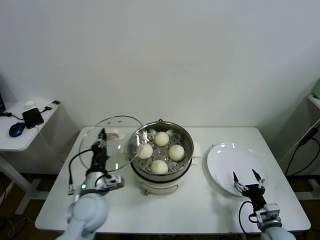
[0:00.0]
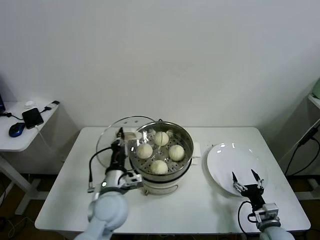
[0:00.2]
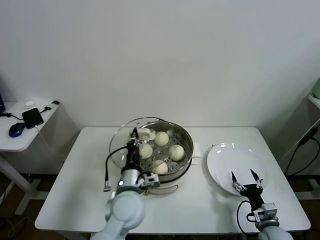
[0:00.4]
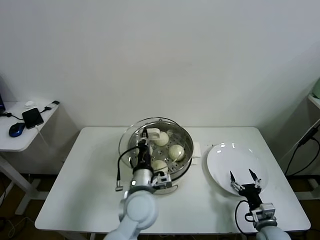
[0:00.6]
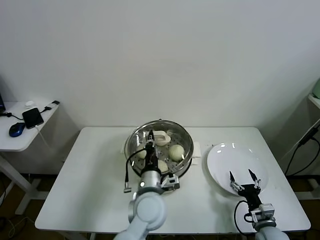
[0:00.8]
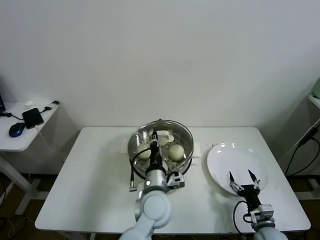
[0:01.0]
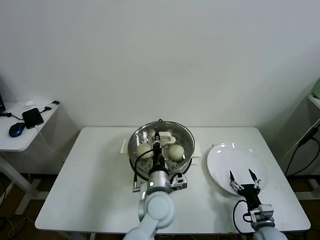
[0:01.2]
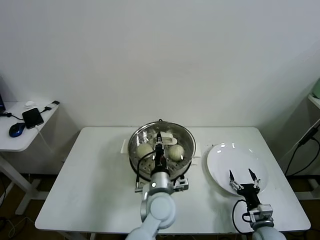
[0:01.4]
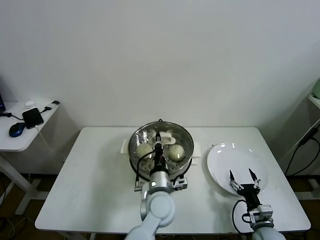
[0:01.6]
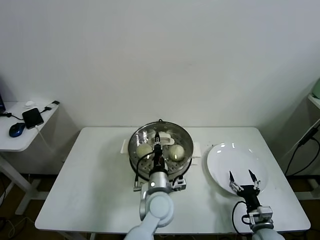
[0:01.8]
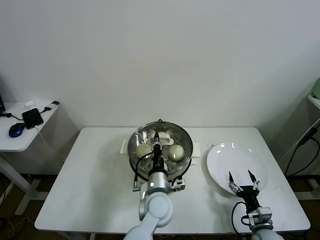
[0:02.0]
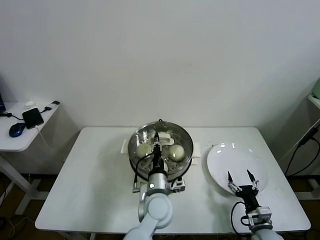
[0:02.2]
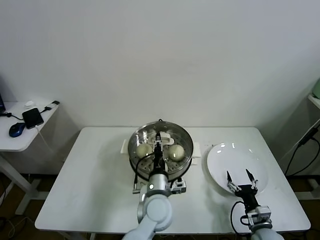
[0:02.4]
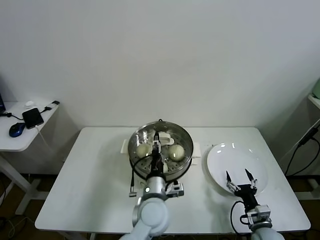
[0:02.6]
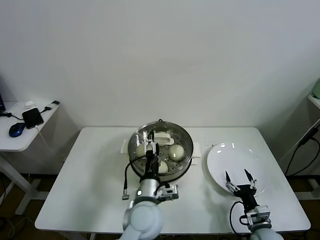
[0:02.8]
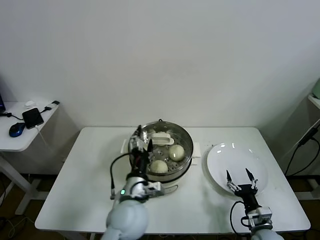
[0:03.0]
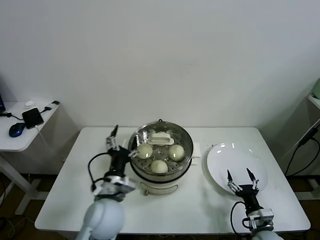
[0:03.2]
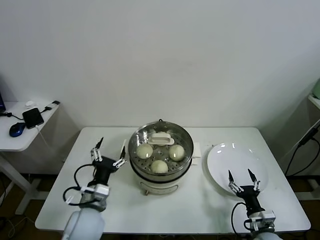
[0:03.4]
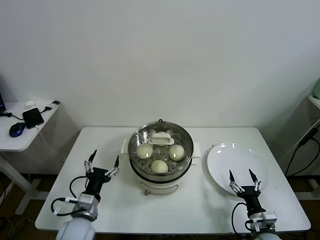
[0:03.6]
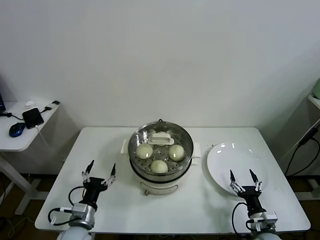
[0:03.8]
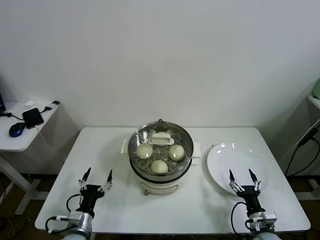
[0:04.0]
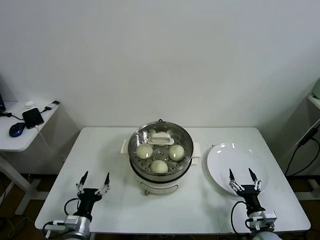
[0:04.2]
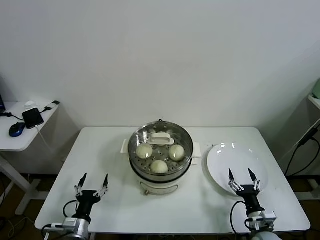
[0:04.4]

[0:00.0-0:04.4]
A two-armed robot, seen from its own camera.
Task of the whole recording: take steamed baozi put them in steamer.
Step, 0:00.0 to 0:02.6: Place the pot lid on the steamer with left gripper.
0:00.0 to 0:01.4: The left gripper goes approximately 20 cm to the right.
0:01.4 to 0:03.0: The left gripper travels to the left by approximately 5 cm, and opens up.
0:03.0 to 0:04.4: The left gripper moves to the left and downward, about 25 cm.

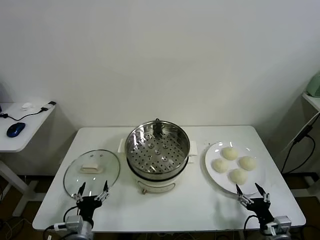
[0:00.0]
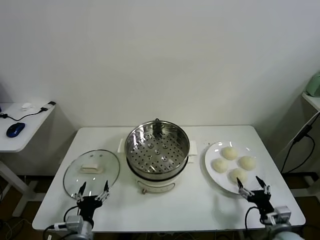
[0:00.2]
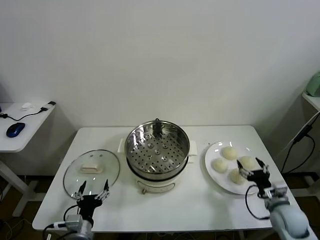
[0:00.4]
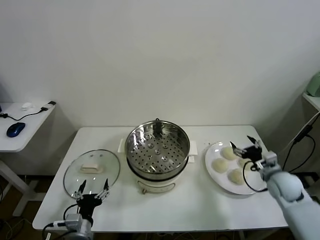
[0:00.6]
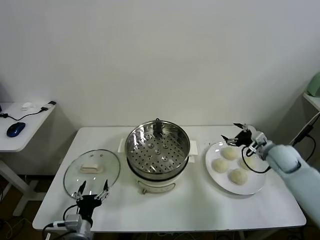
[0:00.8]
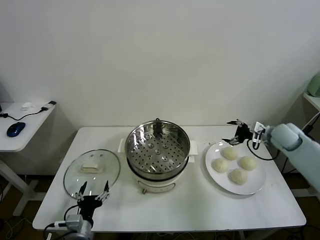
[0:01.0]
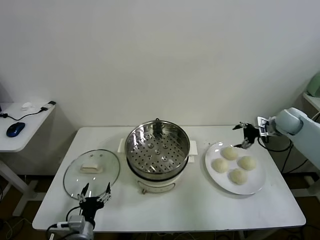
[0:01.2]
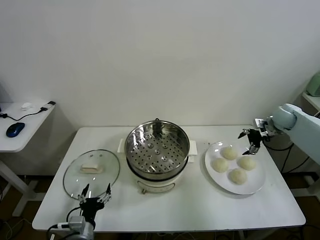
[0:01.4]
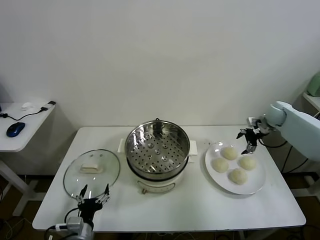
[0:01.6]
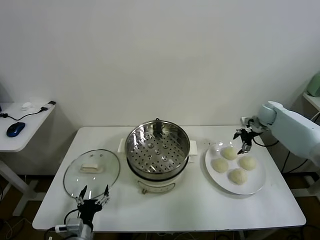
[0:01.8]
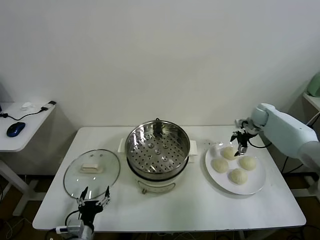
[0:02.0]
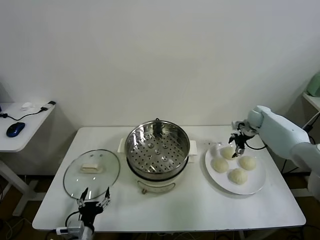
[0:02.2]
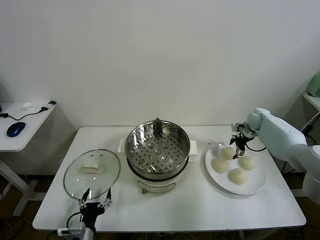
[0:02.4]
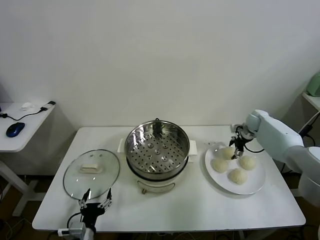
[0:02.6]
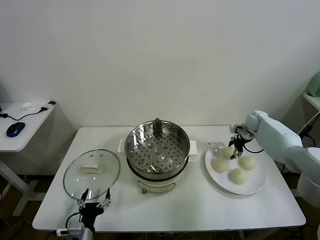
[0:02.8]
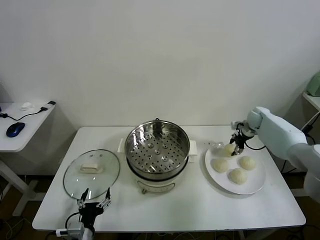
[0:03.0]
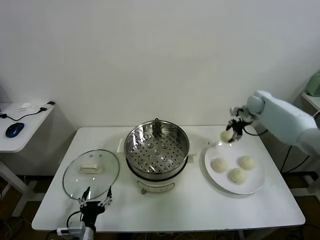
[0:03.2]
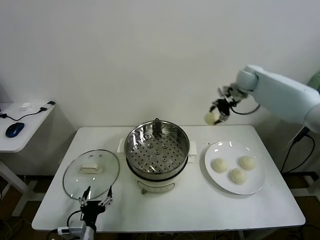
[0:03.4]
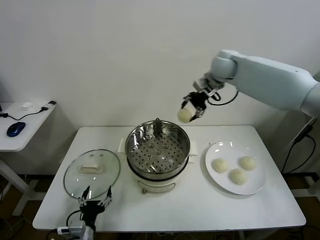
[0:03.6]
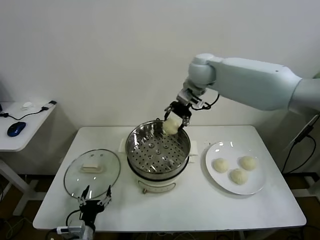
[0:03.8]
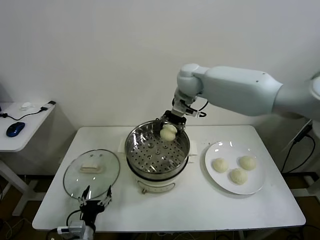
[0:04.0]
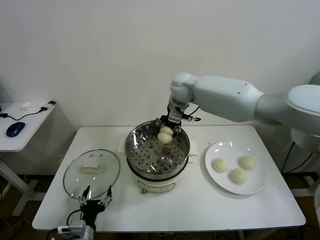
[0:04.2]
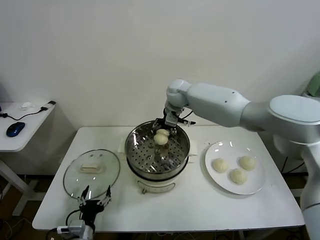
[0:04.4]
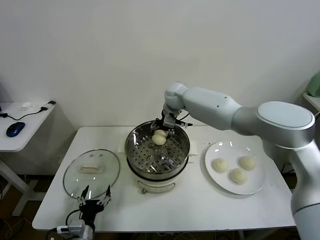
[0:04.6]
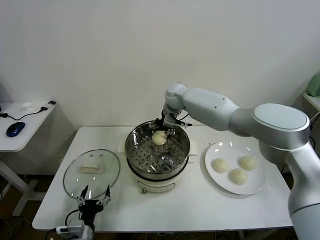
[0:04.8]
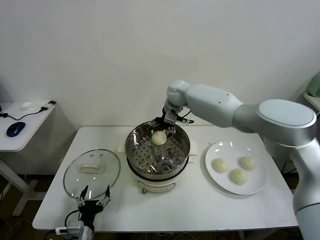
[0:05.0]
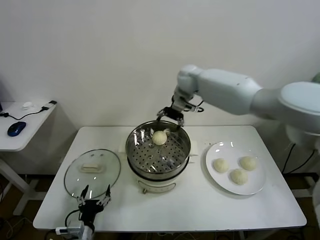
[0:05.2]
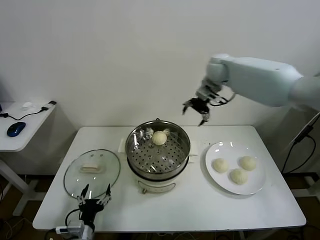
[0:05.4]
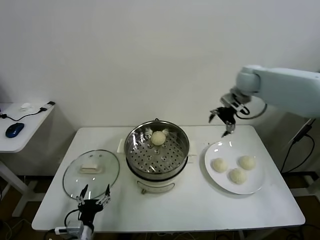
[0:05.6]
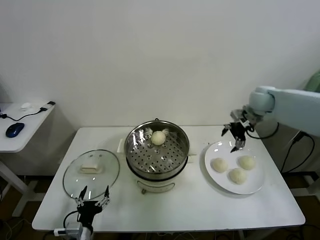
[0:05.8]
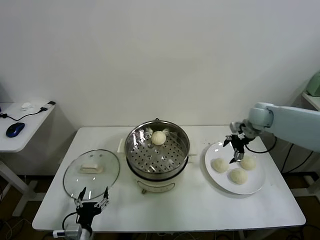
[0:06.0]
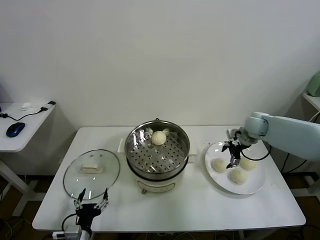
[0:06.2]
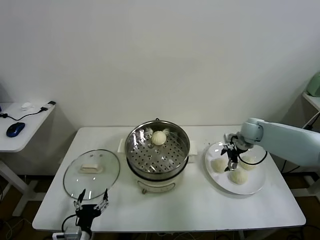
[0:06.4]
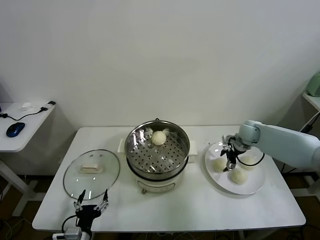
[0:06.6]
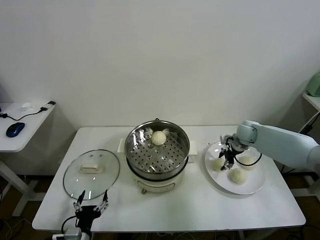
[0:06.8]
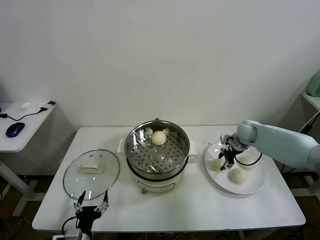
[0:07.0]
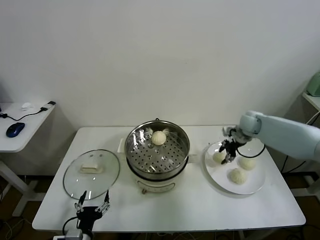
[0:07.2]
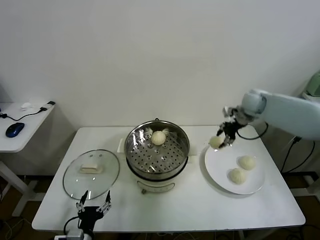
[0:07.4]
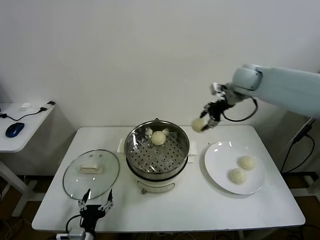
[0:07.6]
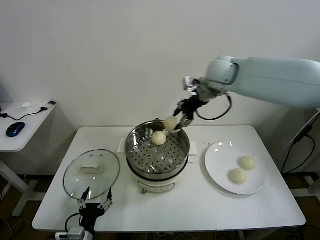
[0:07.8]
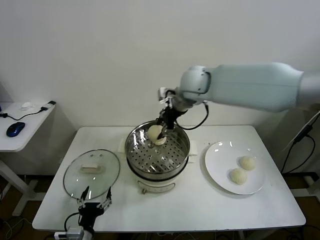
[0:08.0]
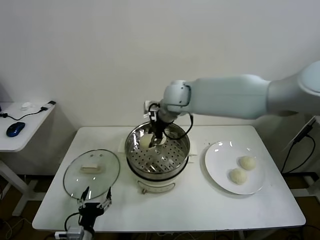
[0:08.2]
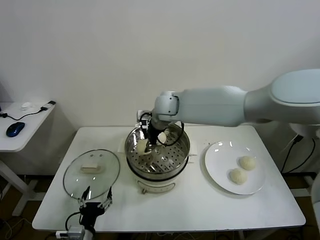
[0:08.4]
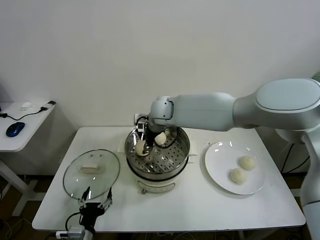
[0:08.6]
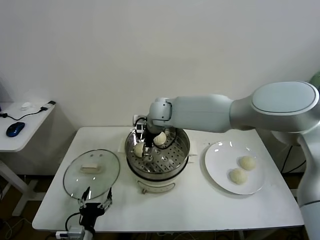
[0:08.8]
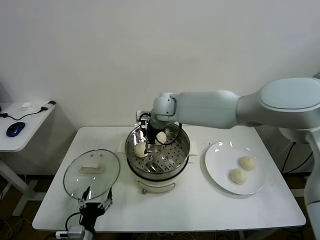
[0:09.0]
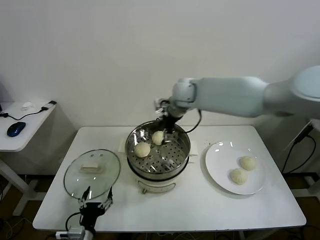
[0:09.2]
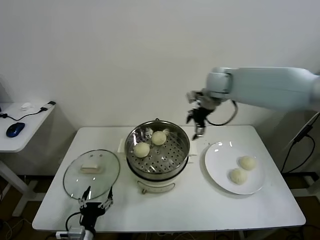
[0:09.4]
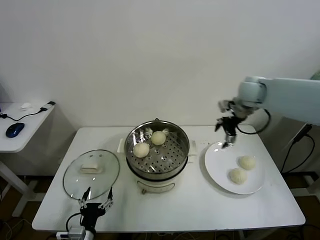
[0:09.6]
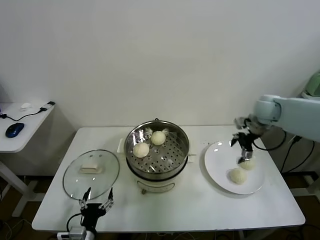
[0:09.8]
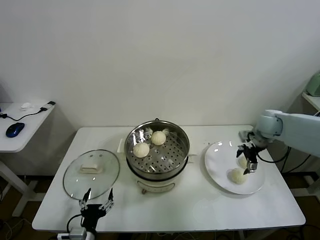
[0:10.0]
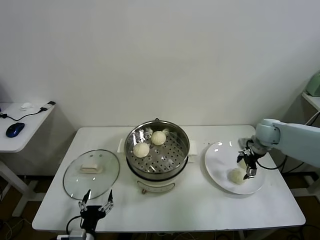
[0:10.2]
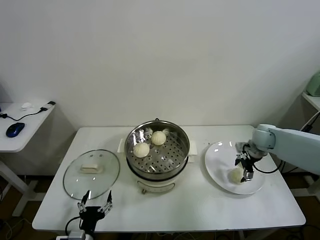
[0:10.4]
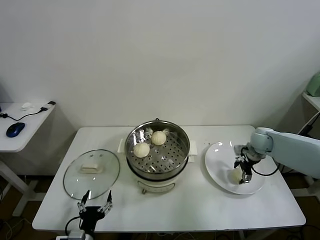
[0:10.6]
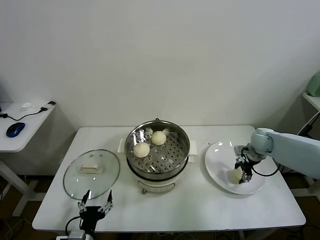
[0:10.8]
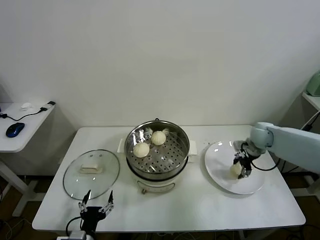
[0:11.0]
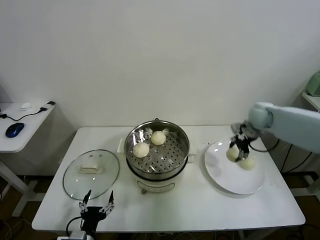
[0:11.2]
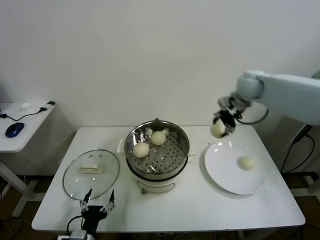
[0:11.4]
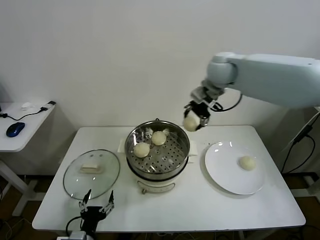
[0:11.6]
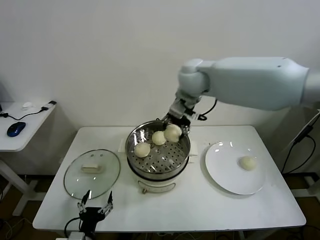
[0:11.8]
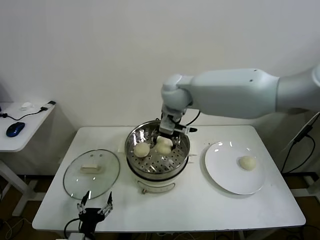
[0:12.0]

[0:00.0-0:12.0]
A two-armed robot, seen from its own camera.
Task of the whole recording: take steamed baozi put them in steamer.
Step, 0:00.0 to 0:02.8: Grasp the baozi in the plate with right gripper.
Step, 0:03.0 to 0:04.8: Place the baozi on the steamer with right gripper.
Step, 0:05.2 to 0:06.8: Grasp the baozi in the plate with right gripper.
Step, 0:07.0 to 0:09.0: Place the baozi on the steamer with right gripper.
Step, 0:09.2 to 0:10.8: Grasp the baozi in the plate with right gripper.
0:01.6 to 0:03.0: The right gripper closes.
0:03.0 to 0:04.4: The right gripper goes approximately 35 cm to the left.
0:04.4 to 0:06.0: The right gripper is displaced to the right by about 30 cm, and opens its fingers.
0:06.0 to 0:07.6: The right gripper goes some 25 cm upward and to the left, and closes.
0:07.6 to 0:09.0: The right gripper heads to the left and downward, covering roughly 20 cm, and opens its fingers.
0:09.0 to 0:10.4: The right gripper goes roughly 40 cm to the right and downward.
0:10.4 to 0:12.0: The right gripper heads to the left and upward, covering some 40 cm, and closes.

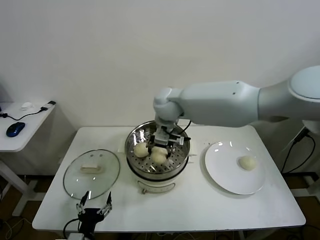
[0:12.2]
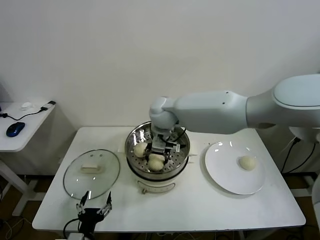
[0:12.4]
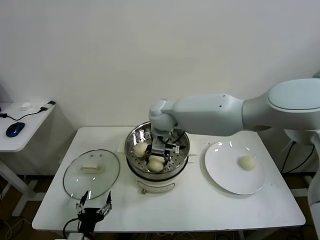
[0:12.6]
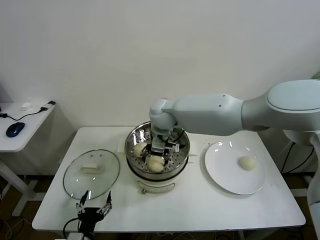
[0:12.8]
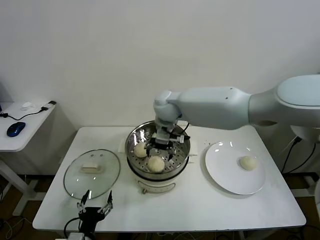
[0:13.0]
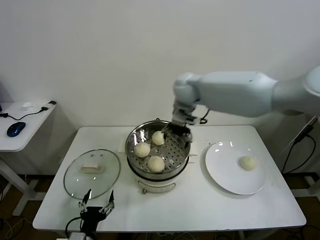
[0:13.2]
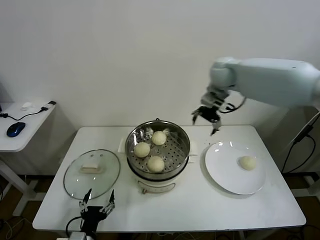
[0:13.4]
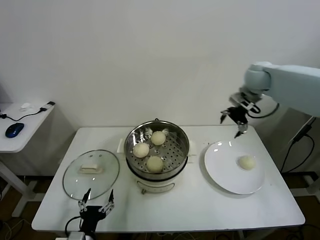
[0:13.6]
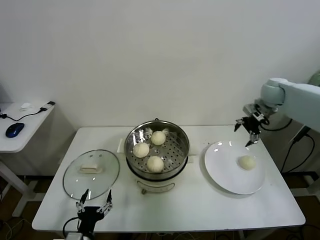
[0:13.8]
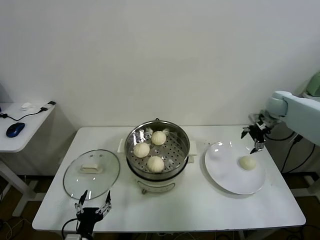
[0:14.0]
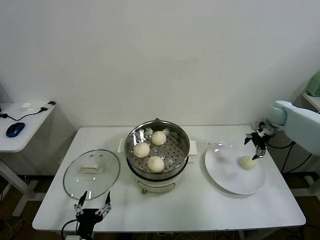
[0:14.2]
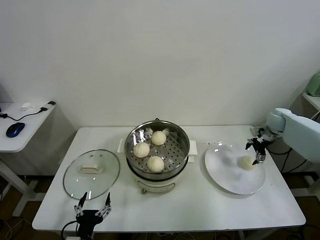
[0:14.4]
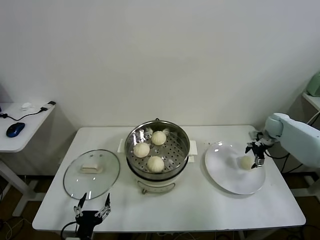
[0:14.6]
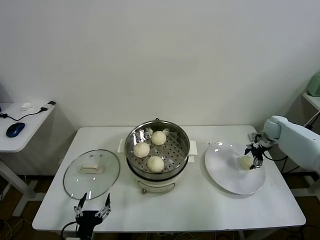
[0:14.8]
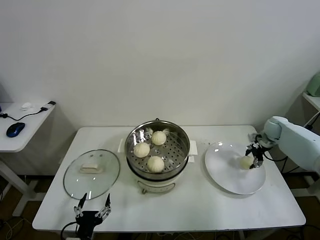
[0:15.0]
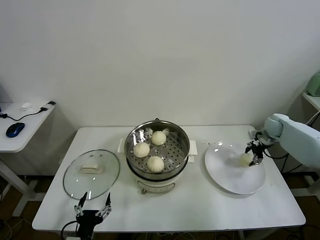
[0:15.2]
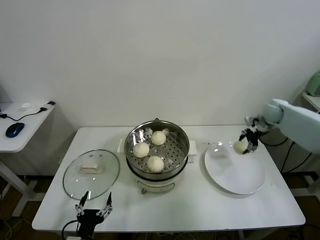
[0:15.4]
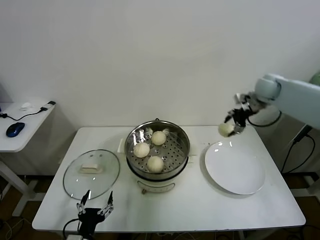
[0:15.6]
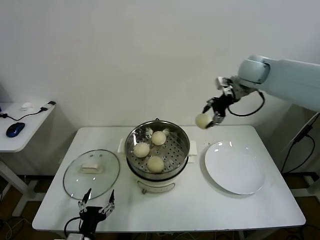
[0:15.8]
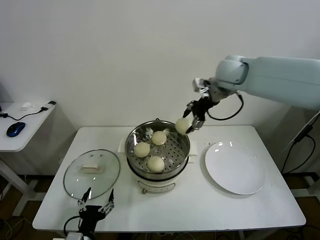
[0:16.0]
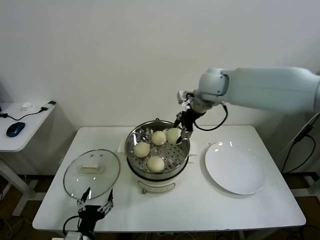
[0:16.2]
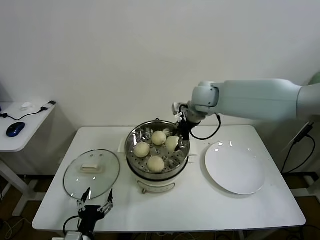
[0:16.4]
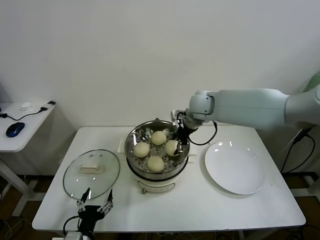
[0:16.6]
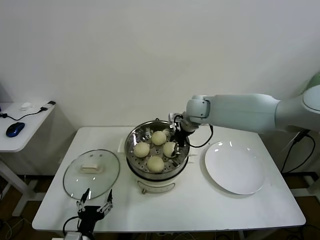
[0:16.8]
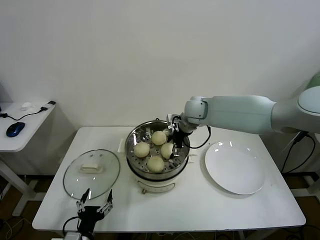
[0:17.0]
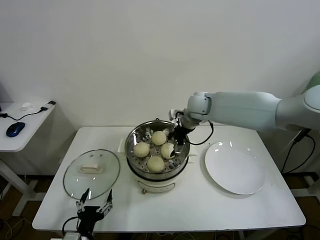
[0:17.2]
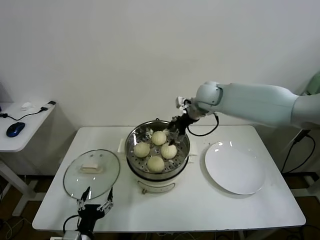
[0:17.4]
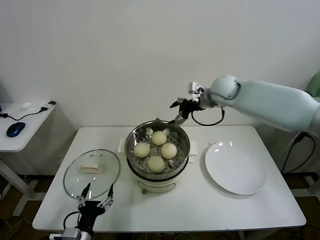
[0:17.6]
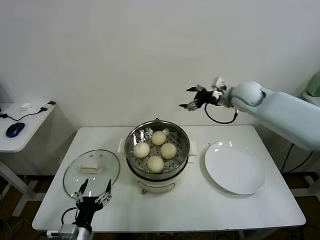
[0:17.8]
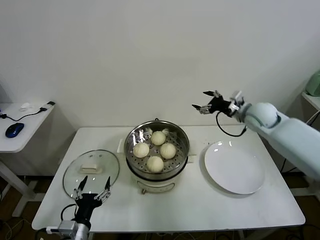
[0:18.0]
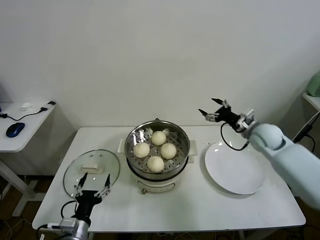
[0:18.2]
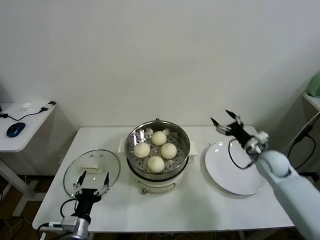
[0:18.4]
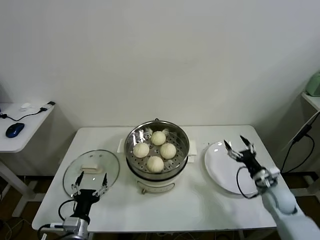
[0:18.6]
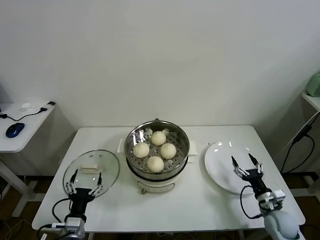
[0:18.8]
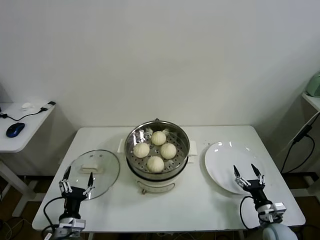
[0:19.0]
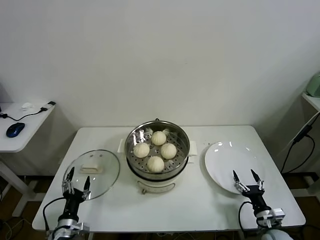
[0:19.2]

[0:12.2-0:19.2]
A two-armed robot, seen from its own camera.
Task of the whole recording: take steamed baozi put them in steamer.
Step, 0:13.2 to 0:15.0: Grasp the baozi in the plate with right gripper.
Step, 0:15.2 to 0:17.2: Place the baozi on the steamer with right gripper.
0:12.2 to 0:13.6: The right gripper is displaced to the right by roughly 35 cm, and opens.
0:13.6 to 0:15.0: The right gripper moves downward and to the right, some 25 cm, and closes its fingers.
0:15.0 to 0:16.4: The right gripper is displaced to the left and upward by approximately 40 cm.
0:16.4 to 0:17.8: The right gripper is displaced to the right by roughly 15 cm, and opens its fingers.
0:17.8 to 0:19.2: The left gripper is displaced downward and to the left by some 10 cm. Meanwhile the right gripper travels downward and backward by roughly 50 cm.
